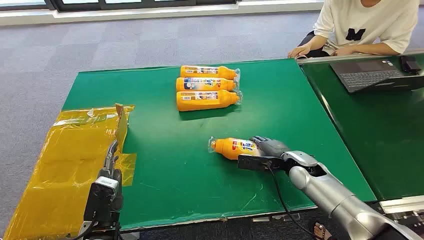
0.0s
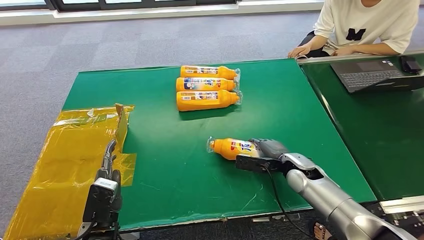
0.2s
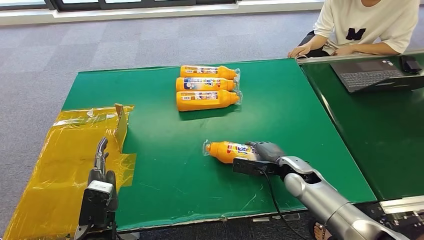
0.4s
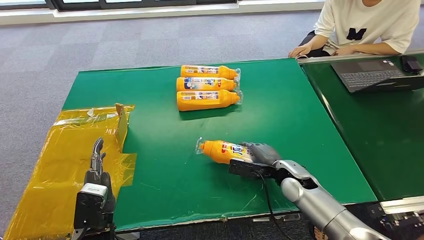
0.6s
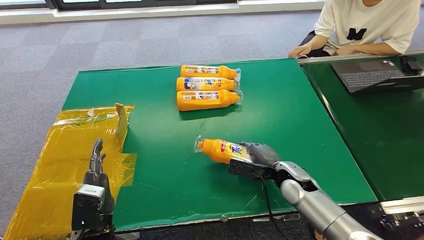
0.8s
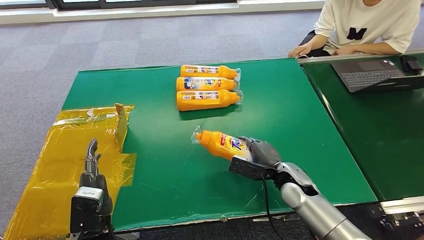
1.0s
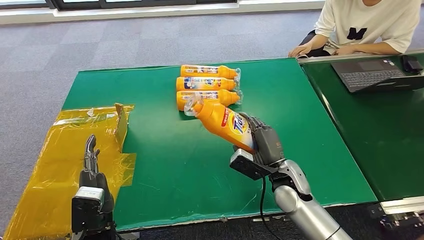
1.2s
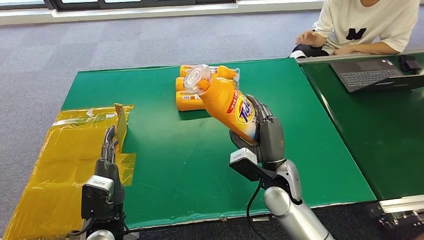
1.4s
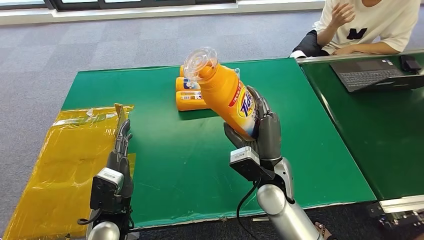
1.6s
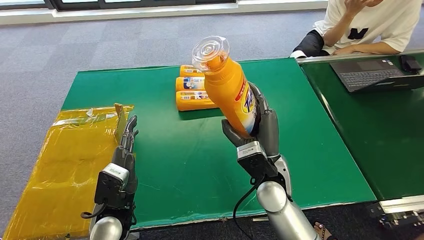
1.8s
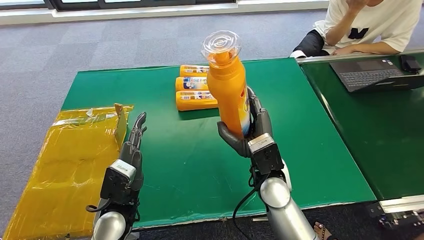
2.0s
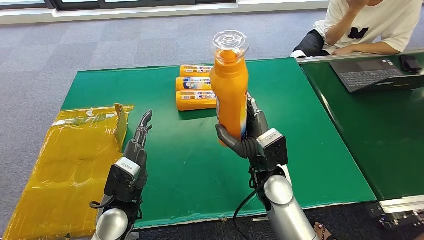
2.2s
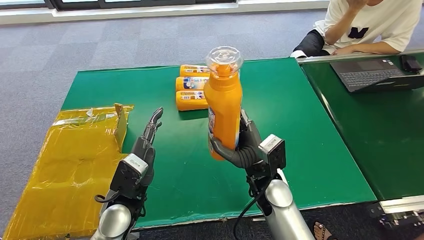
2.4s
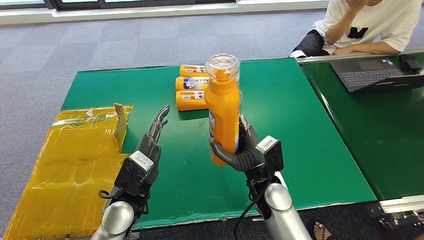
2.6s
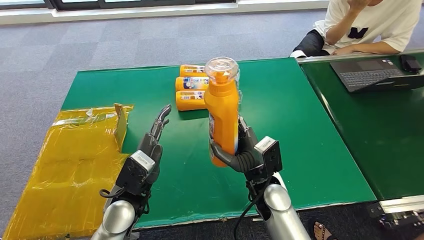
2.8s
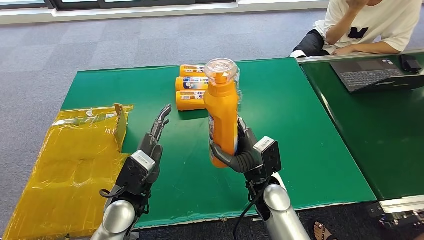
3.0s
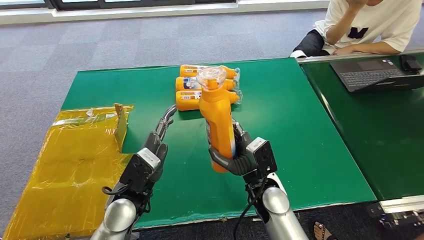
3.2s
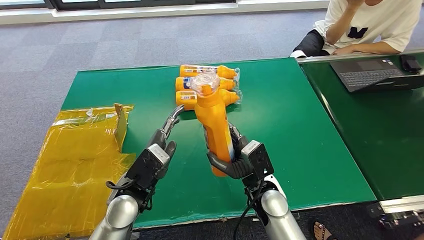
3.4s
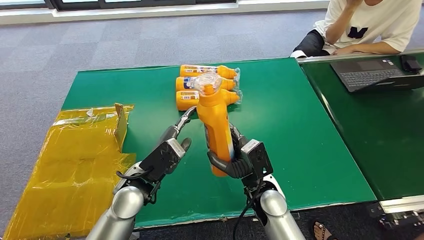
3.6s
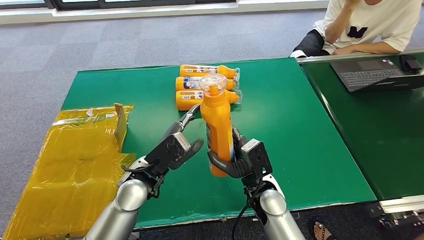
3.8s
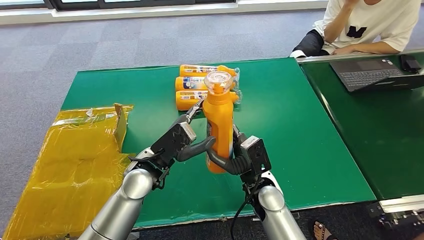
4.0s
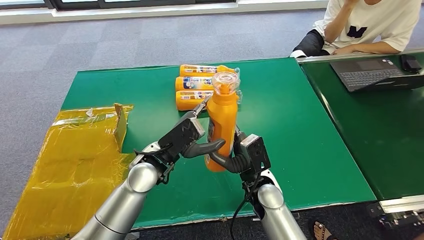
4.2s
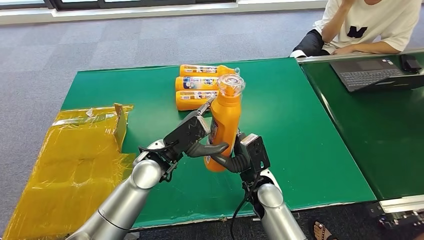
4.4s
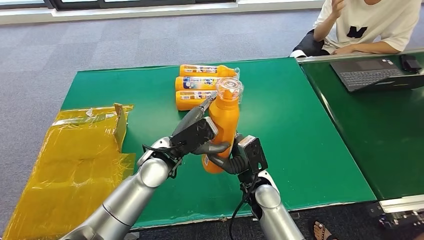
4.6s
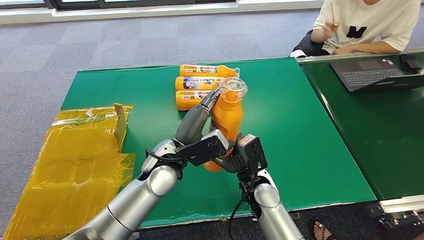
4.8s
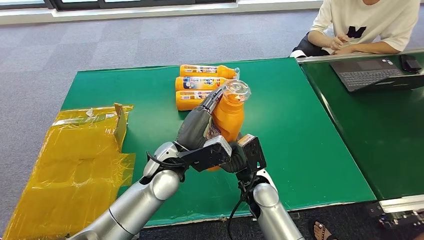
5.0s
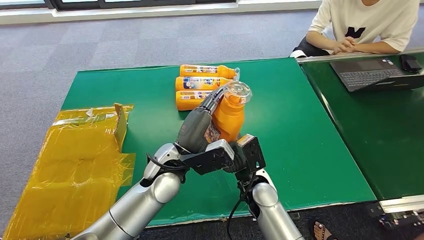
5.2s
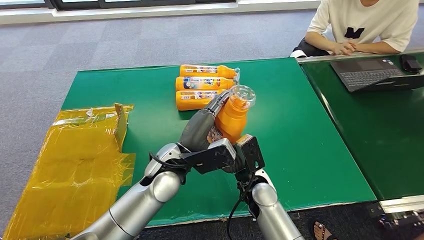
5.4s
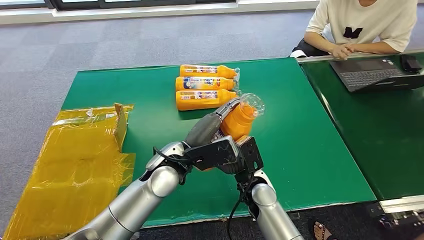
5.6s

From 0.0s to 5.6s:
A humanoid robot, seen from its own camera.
Step, from 0.0s to 1.6s: Pick up the bottle from the table.
Step, from 2.0s to 5.4s: Turn the bottle to the front side.
From 1.4s to 2.8s: The right hand shifts by roughly 5 cm. Meanwhile the left hand shifts about 5 cm to the right and forward.
From 2.8s to 4.2s: The left hand heads forward and to the right, covering some 10 cm.
